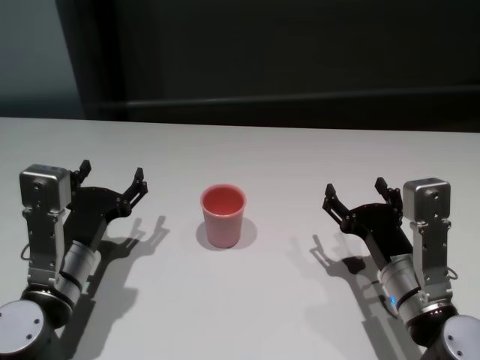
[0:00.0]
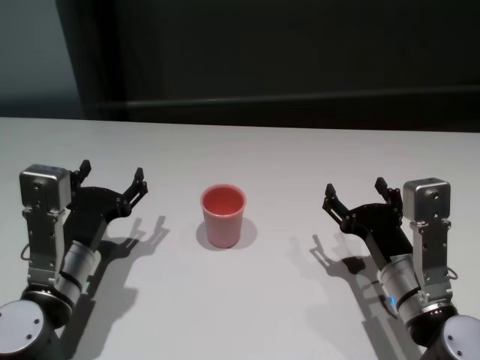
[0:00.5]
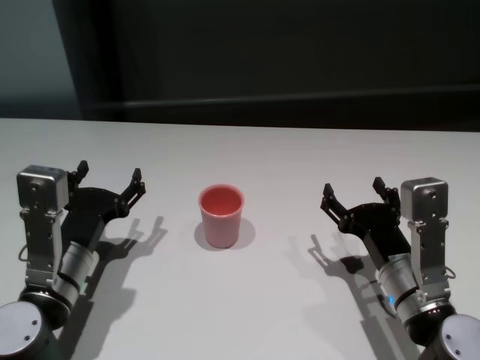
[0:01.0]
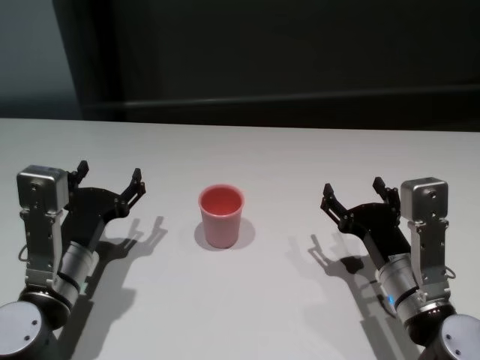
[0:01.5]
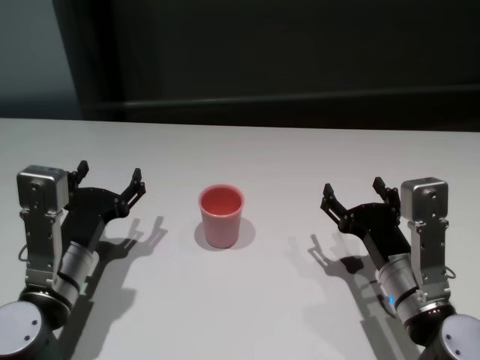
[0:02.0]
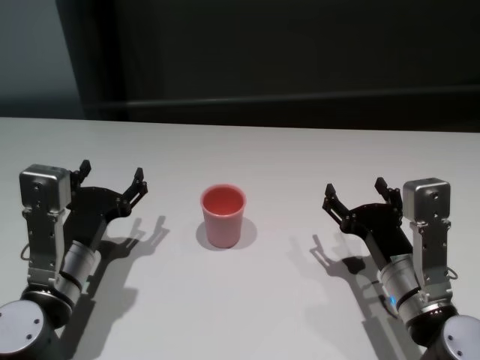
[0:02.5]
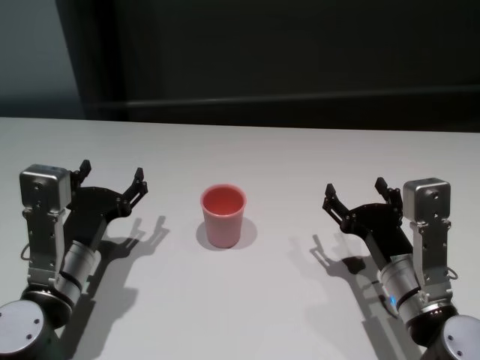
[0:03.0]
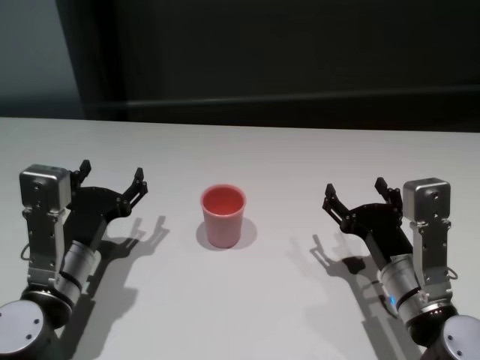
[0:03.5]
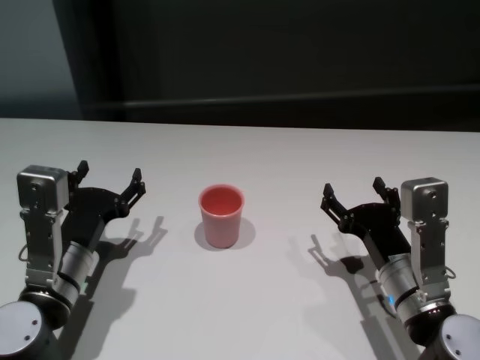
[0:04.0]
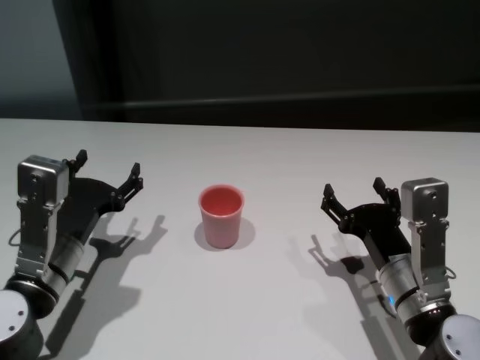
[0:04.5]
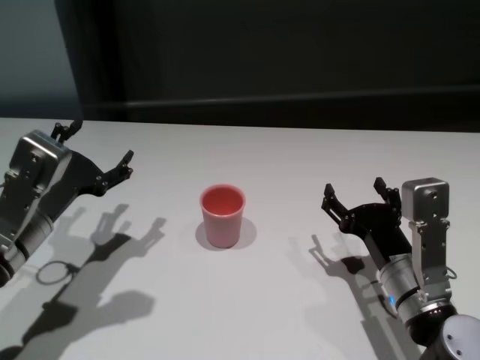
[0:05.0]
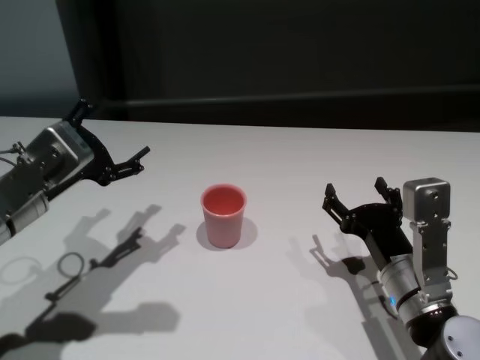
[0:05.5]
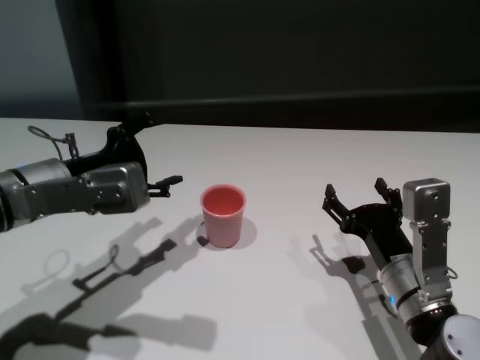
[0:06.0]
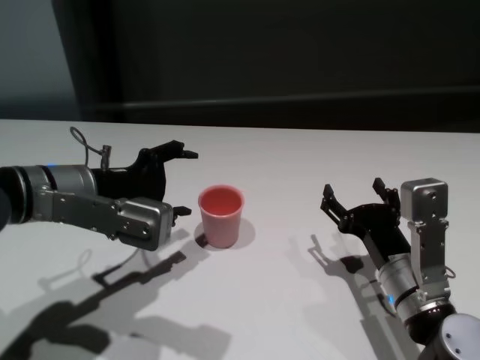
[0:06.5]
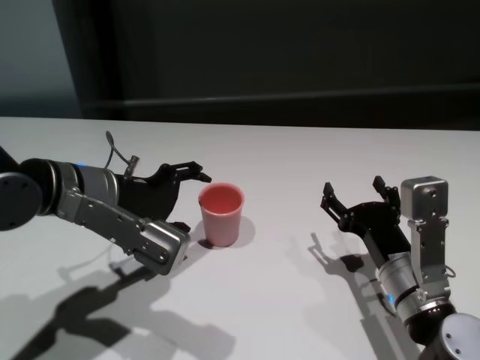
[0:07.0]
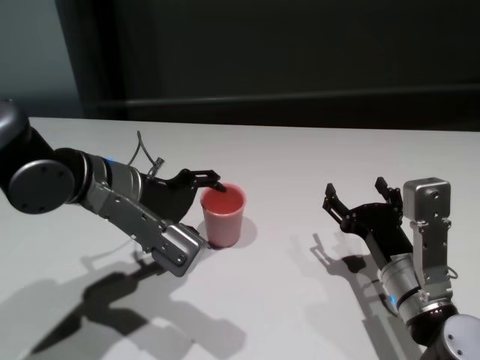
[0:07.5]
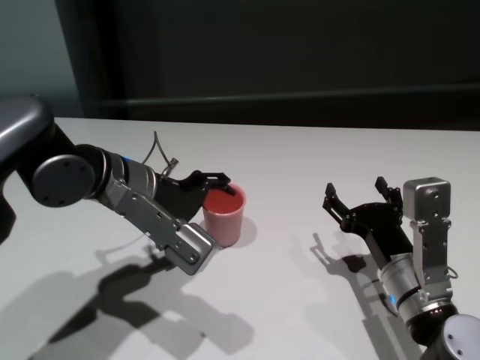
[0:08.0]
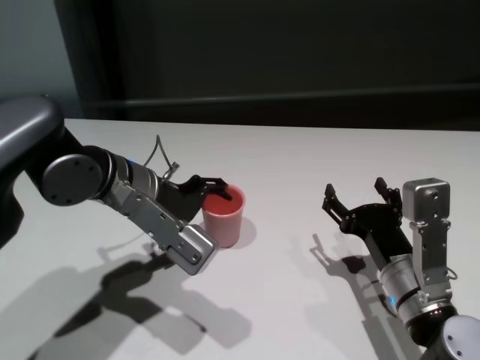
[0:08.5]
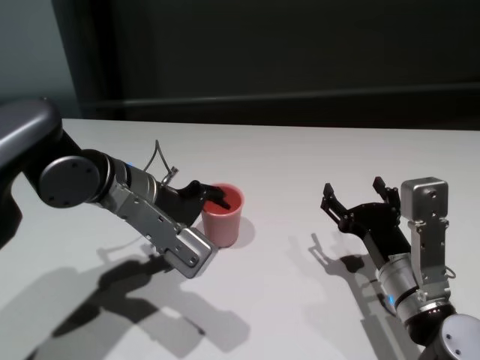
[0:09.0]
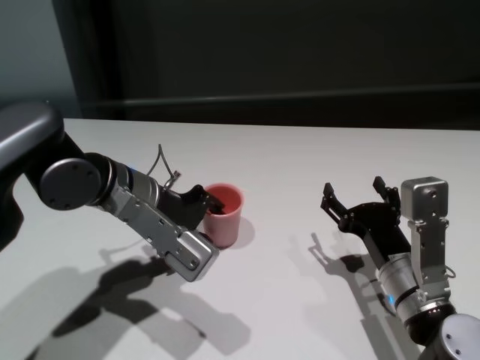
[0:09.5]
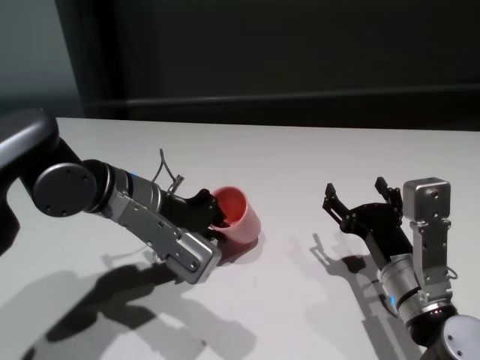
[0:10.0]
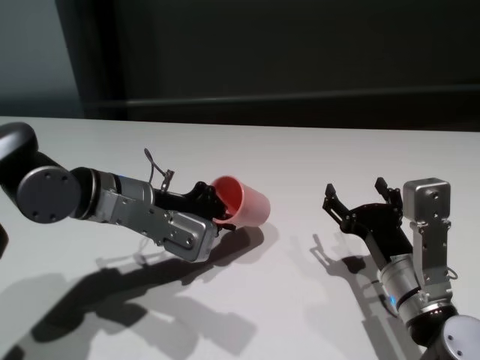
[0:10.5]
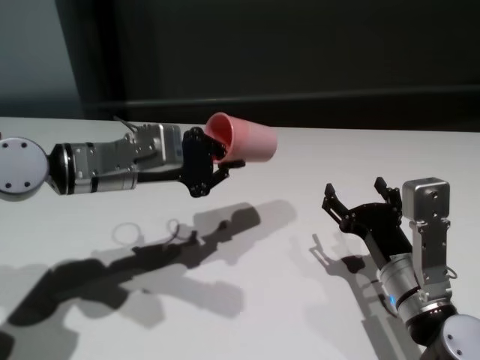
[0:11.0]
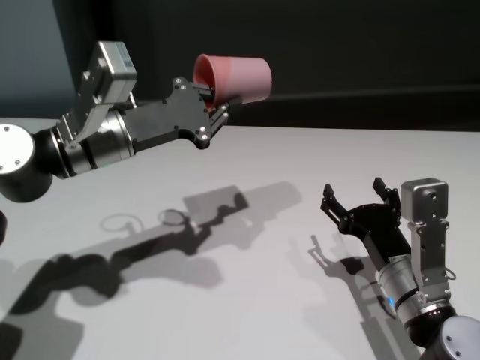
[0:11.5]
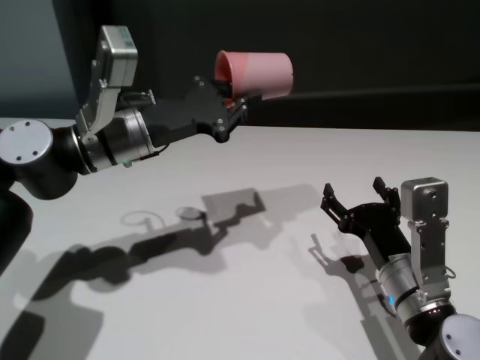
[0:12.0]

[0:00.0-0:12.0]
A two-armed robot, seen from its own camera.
Task of the whole recording: On the white table pick up the cup with one hand and transfer it to the other hand before turning it over.
Step, 0:00.0 to 0:09.5: Grasp the cup with left gripper.

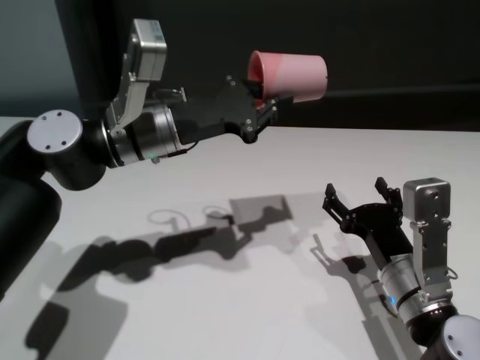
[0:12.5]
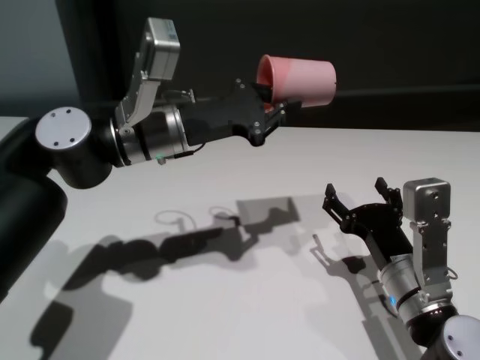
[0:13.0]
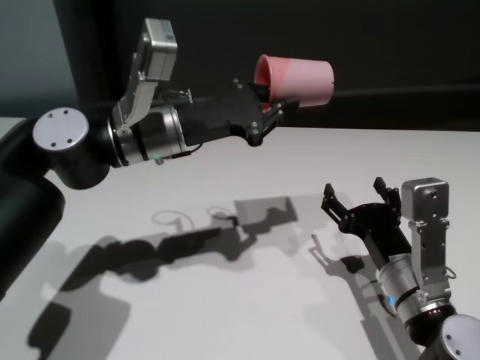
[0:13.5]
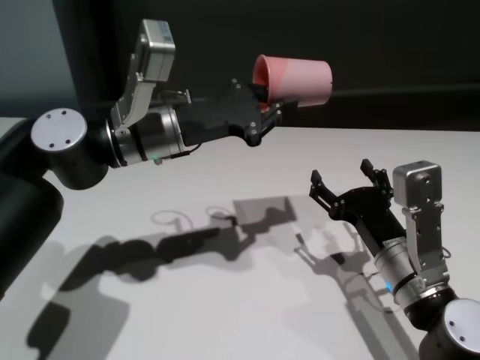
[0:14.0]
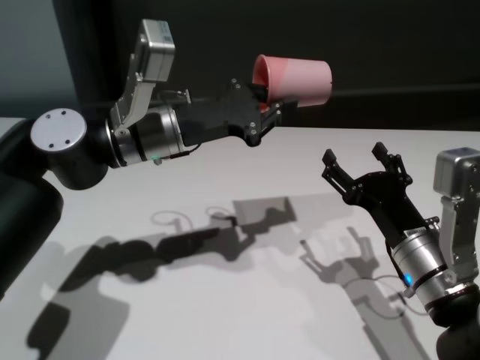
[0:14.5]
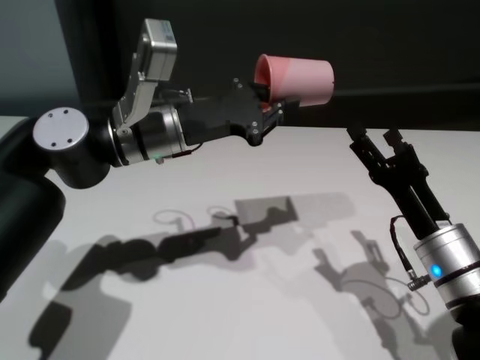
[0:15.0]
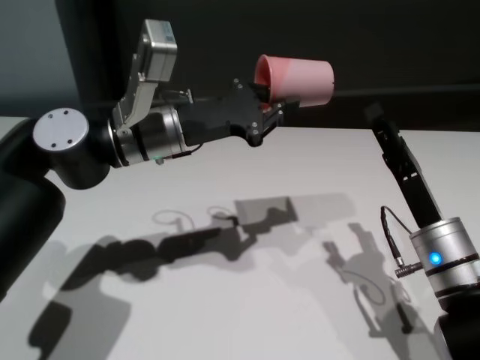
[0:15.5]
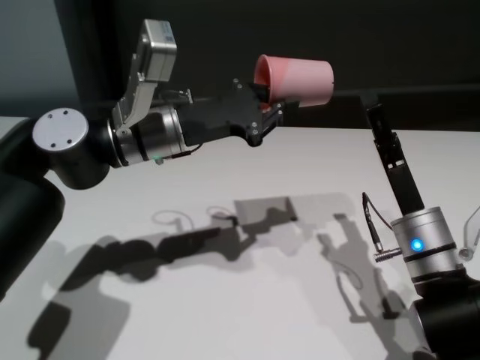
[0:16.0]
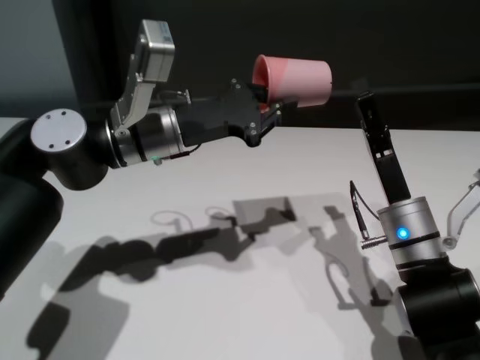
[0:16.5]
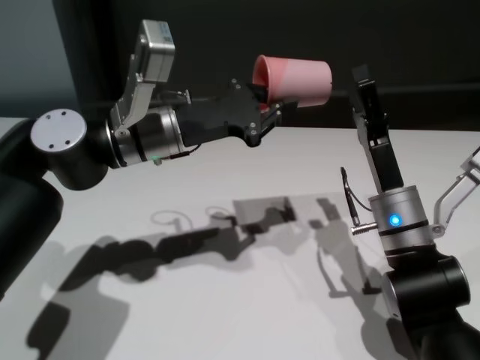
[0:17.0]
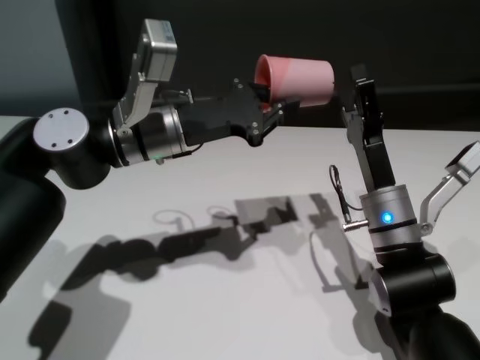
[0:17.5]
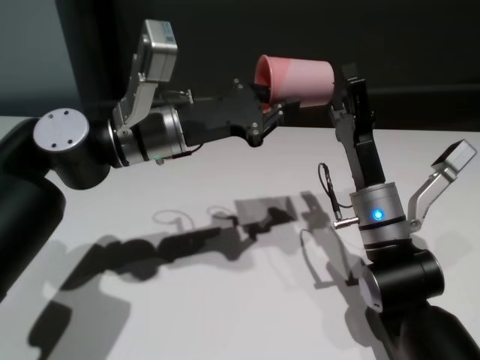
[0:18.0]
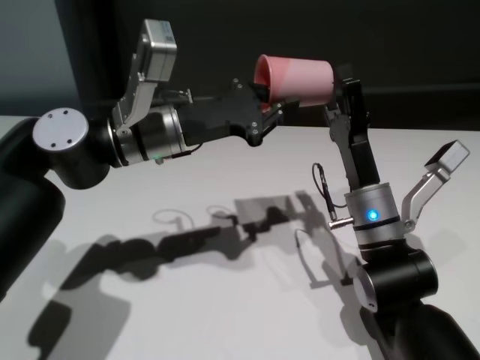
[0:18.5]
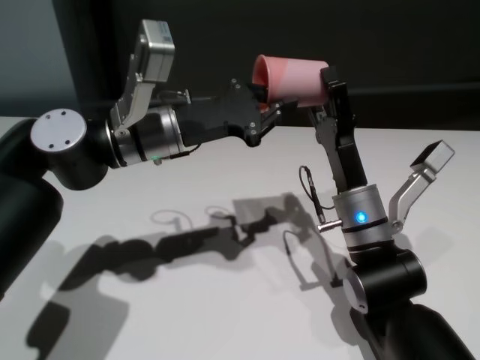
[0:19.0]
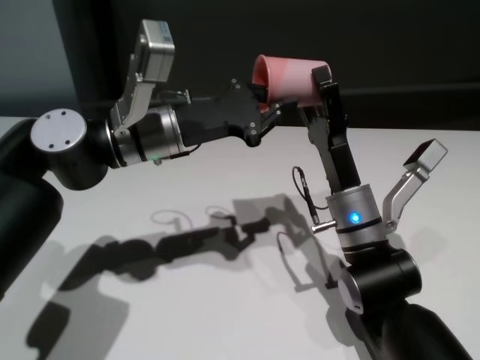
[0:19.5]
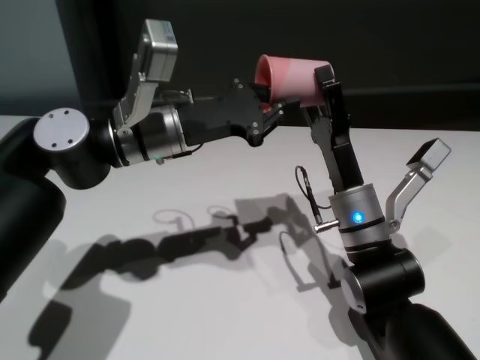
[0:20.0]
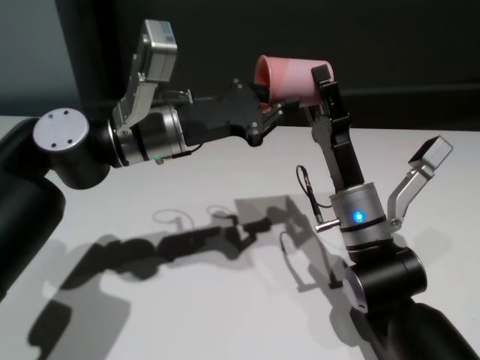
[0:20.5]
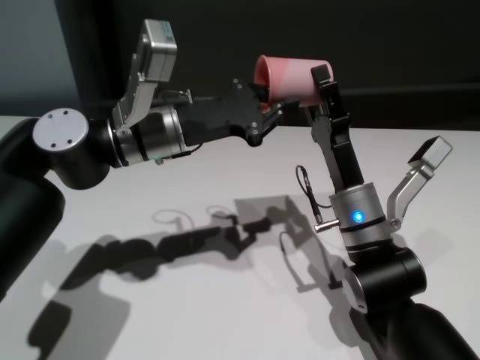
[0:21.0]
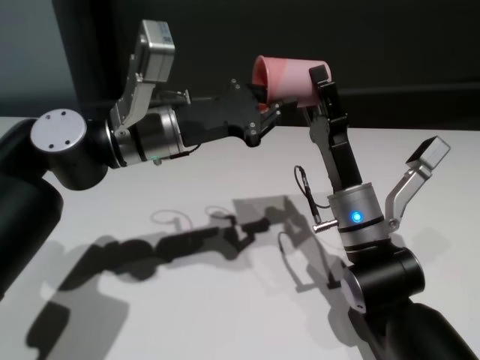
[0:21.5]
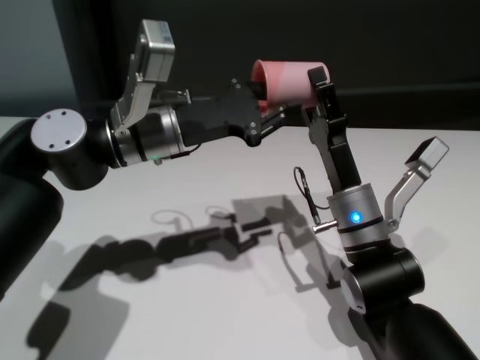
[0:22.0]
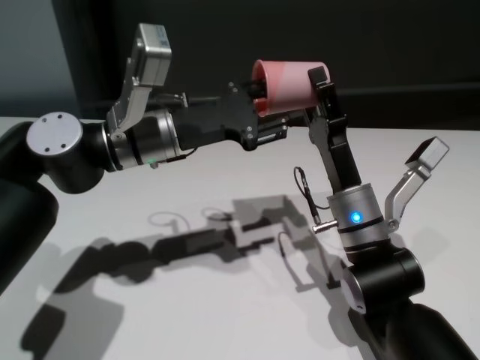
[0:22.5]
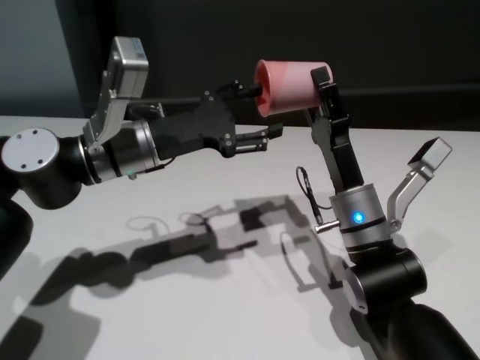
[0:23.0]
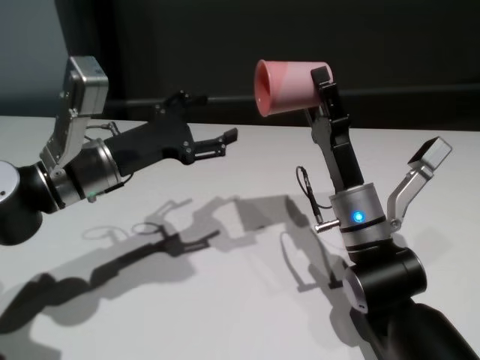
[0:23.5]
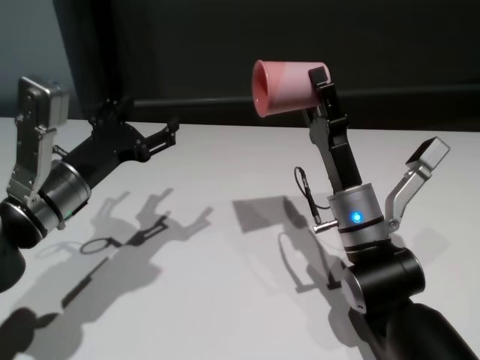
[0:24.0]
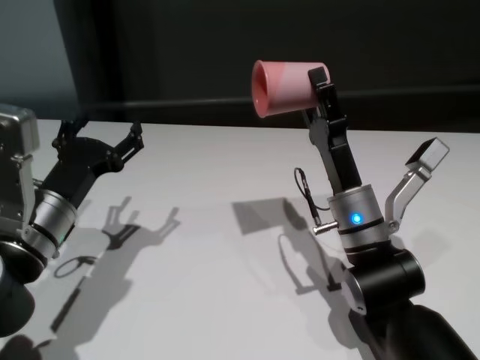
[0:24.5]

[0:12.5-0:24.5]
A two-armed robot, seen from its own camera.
Task of the whole recording: On the white table pick up the cup with one hand and transfer it to the other hand before turning it over.
Step, 0:12.5 to 0:23.0: Pass the cup to the right gripper.

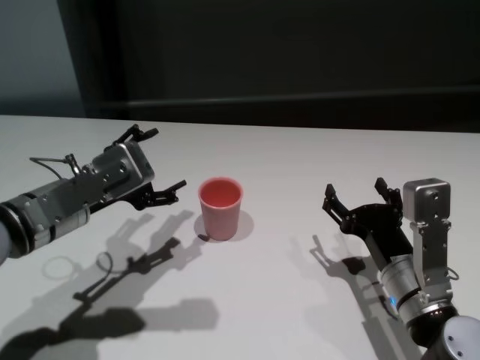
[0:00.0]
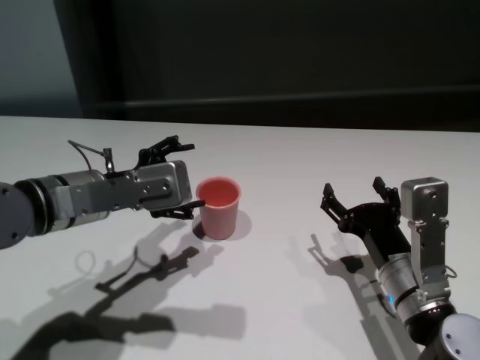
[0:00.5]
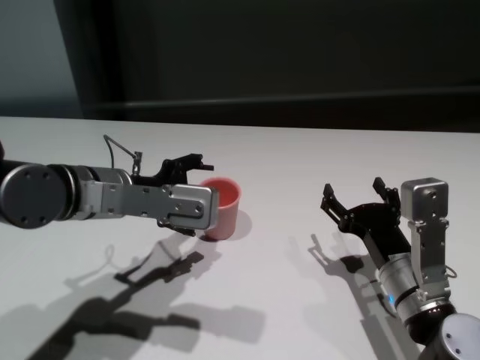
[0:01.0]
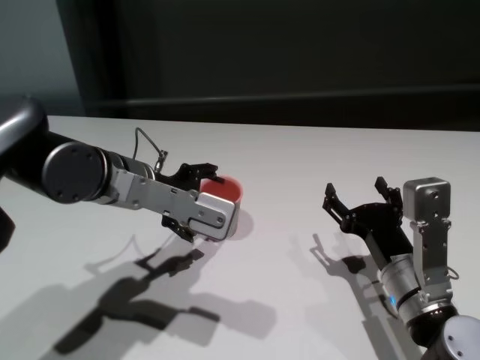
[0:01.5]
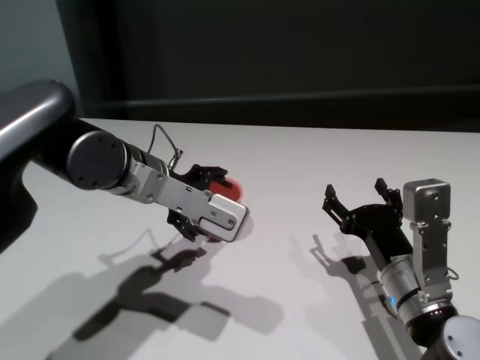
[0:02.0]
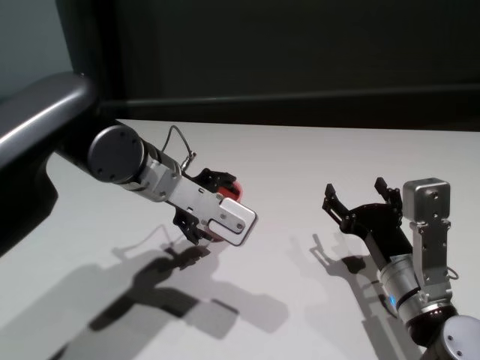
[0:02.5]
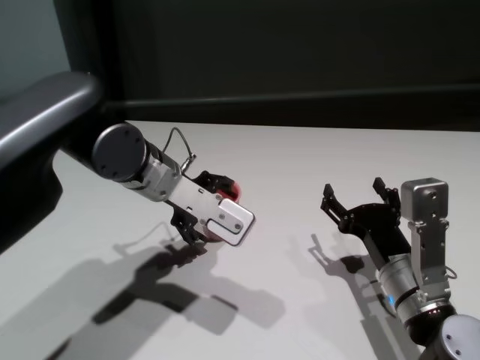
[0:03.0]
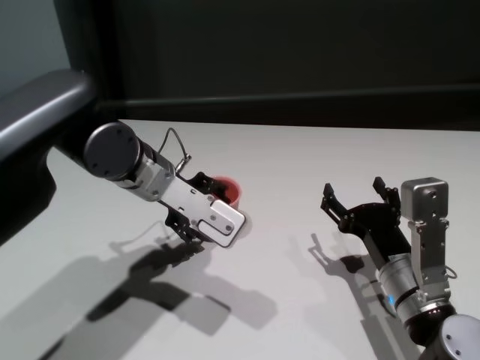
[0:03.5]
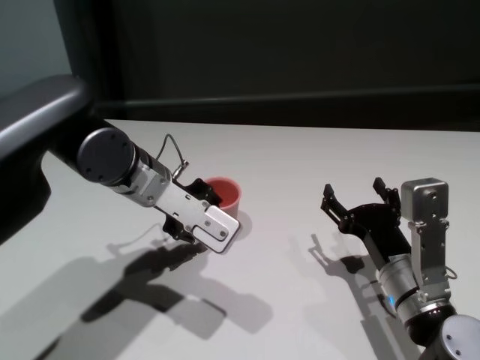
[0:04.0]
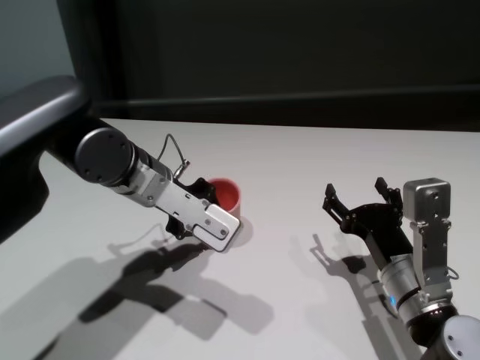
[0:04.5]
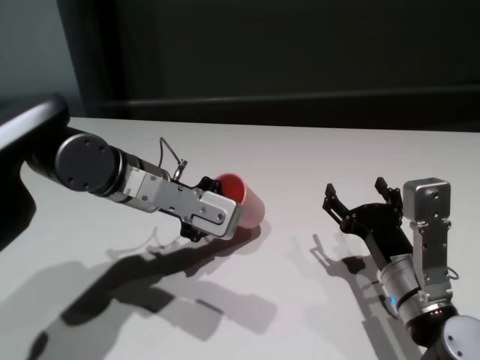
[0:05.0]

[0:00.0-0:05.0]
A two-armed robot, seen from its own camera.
Task of the whole recording: On the white table pick up the cup with one hand and transfer it to the other hand before turning it over.
Step, 0:00.0 to 0:04.0: Grasp the cup with left gripper.
